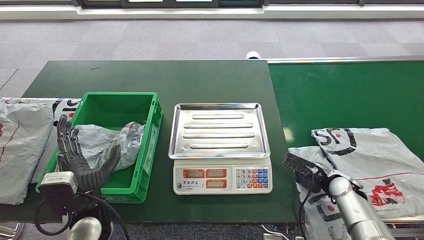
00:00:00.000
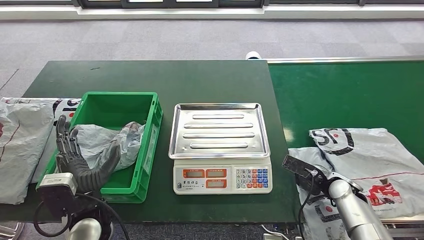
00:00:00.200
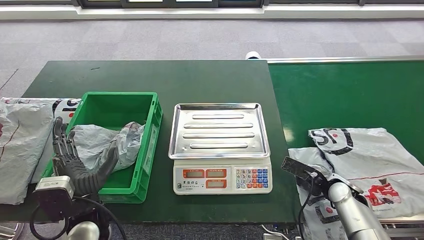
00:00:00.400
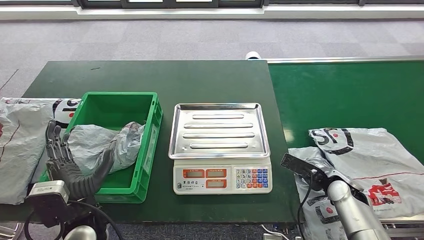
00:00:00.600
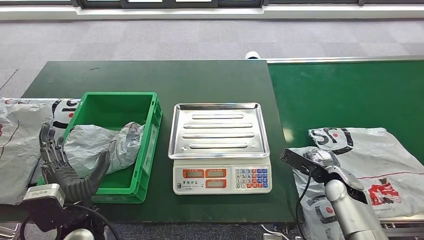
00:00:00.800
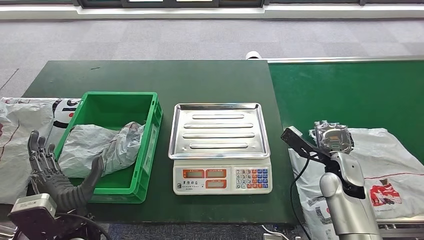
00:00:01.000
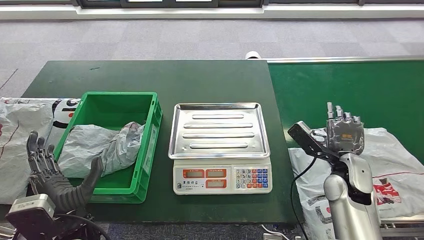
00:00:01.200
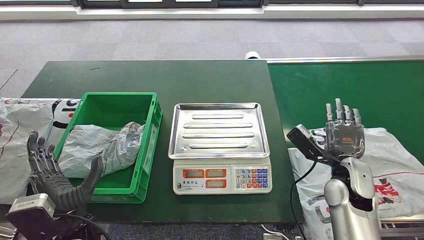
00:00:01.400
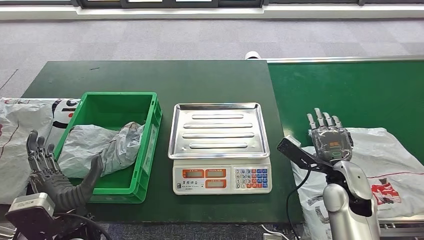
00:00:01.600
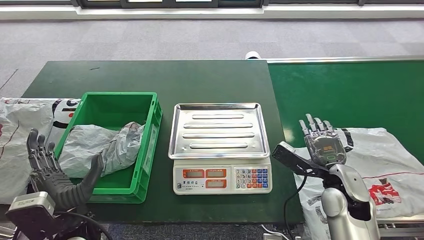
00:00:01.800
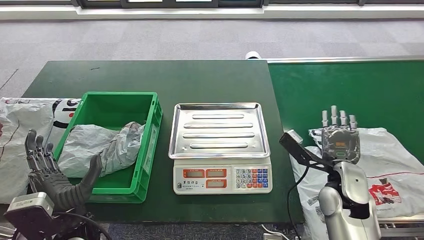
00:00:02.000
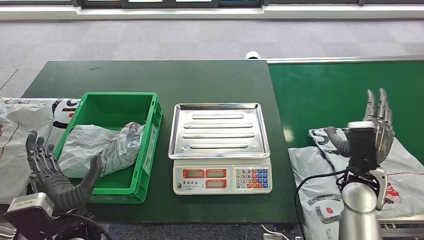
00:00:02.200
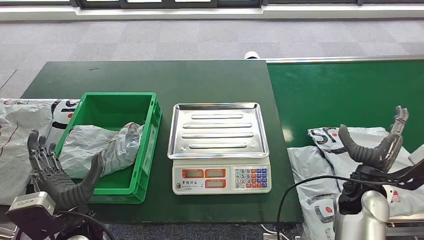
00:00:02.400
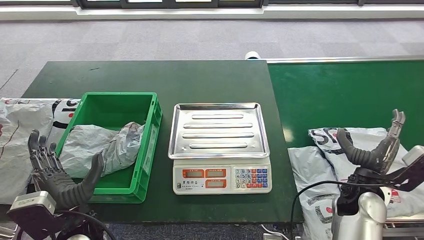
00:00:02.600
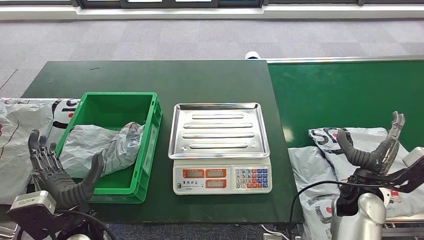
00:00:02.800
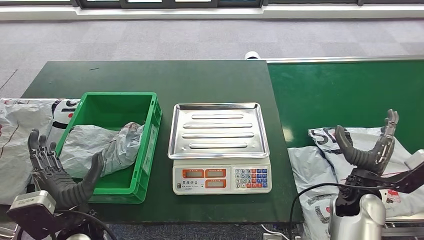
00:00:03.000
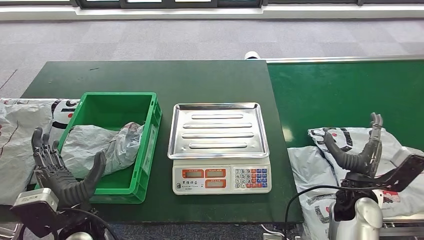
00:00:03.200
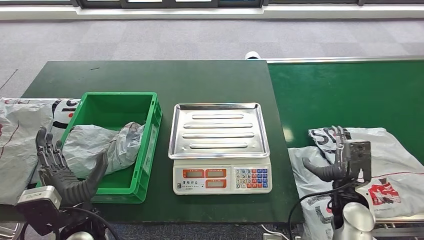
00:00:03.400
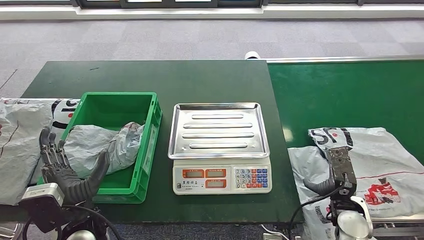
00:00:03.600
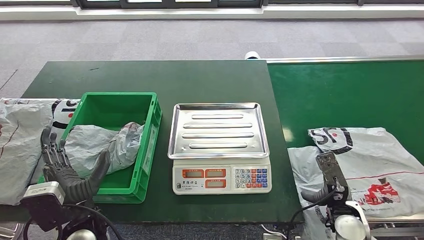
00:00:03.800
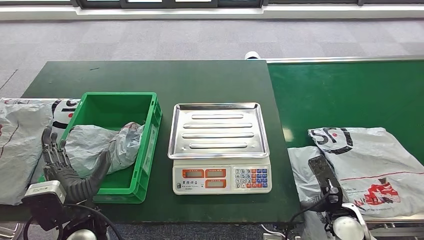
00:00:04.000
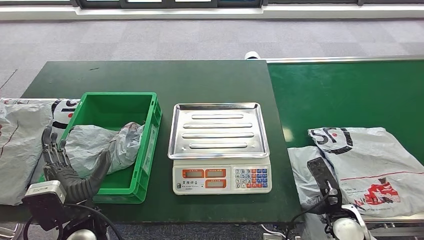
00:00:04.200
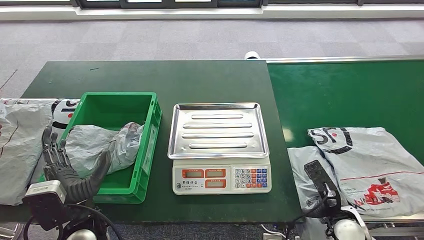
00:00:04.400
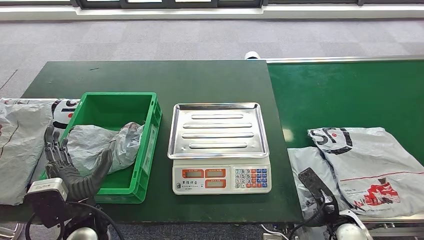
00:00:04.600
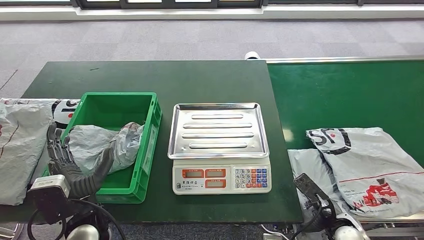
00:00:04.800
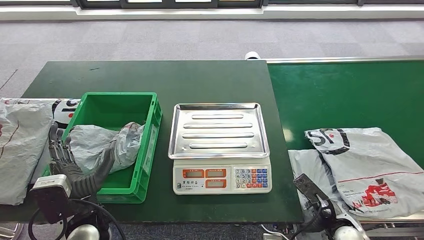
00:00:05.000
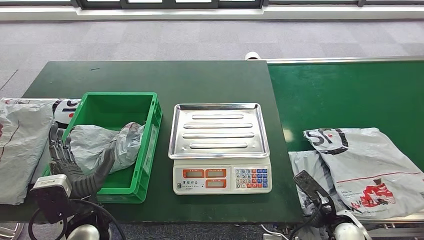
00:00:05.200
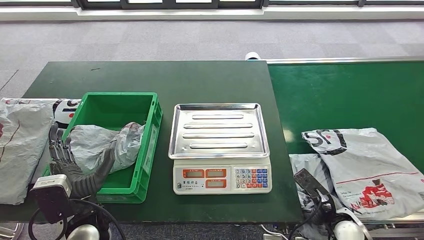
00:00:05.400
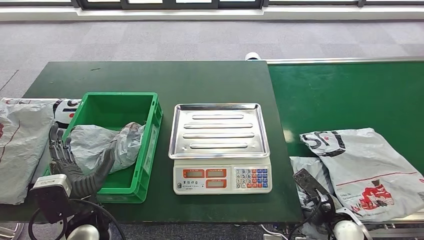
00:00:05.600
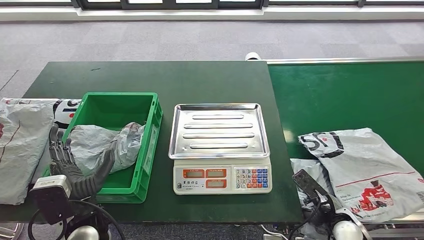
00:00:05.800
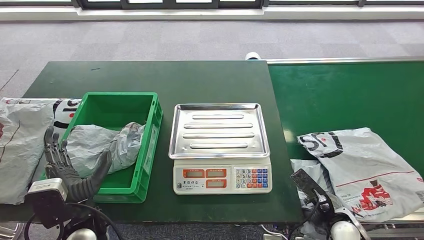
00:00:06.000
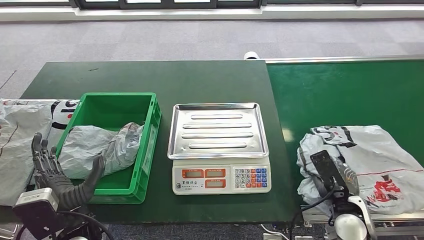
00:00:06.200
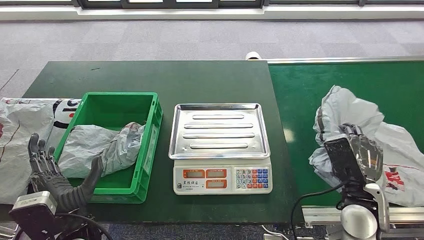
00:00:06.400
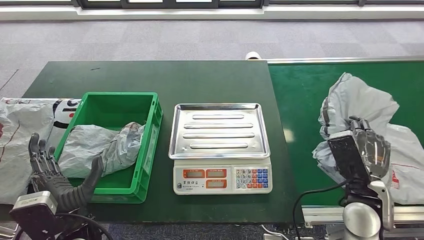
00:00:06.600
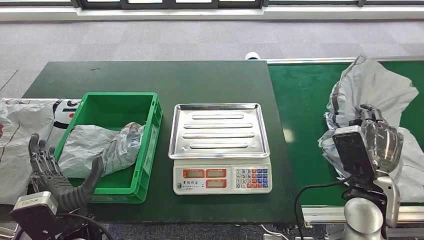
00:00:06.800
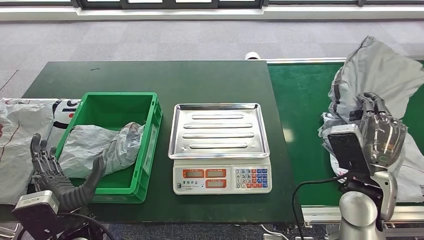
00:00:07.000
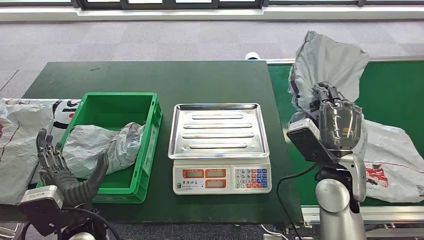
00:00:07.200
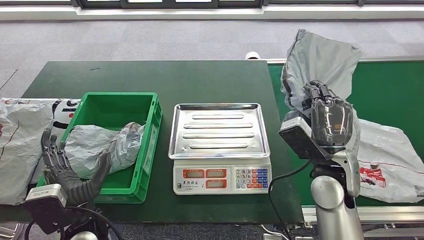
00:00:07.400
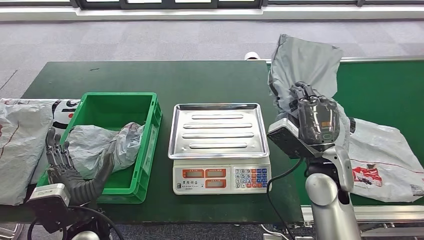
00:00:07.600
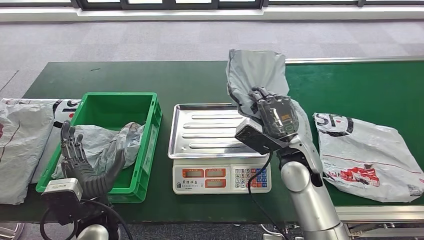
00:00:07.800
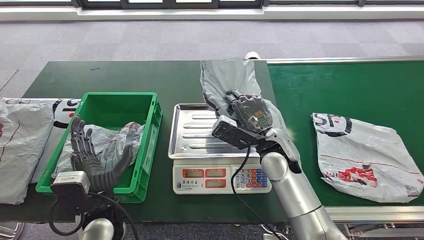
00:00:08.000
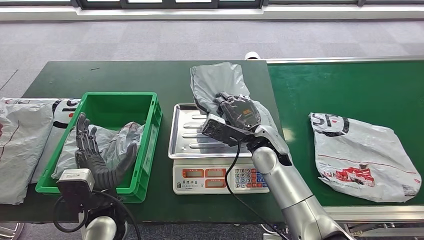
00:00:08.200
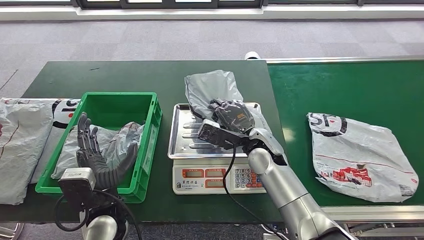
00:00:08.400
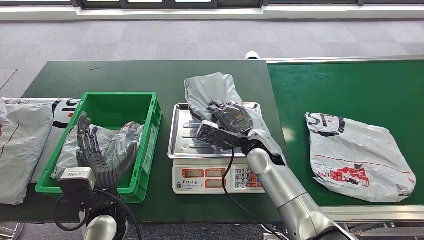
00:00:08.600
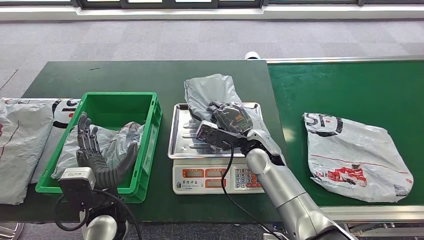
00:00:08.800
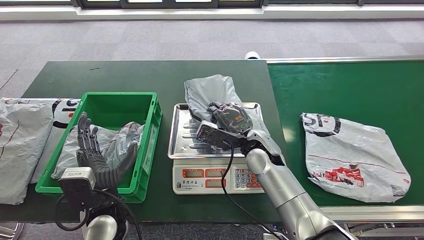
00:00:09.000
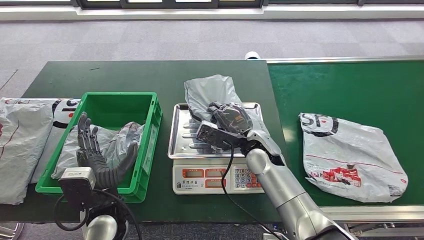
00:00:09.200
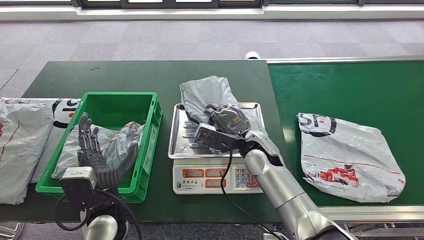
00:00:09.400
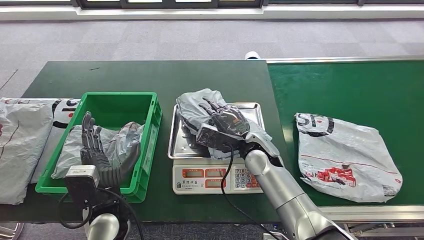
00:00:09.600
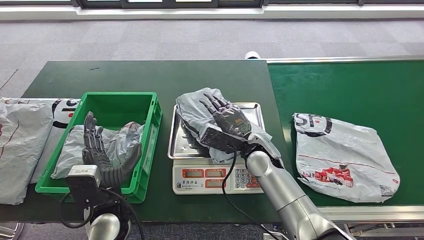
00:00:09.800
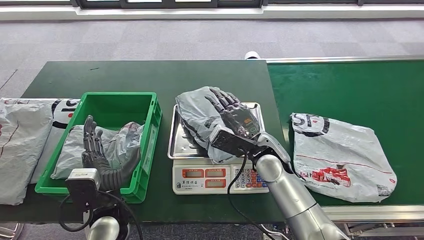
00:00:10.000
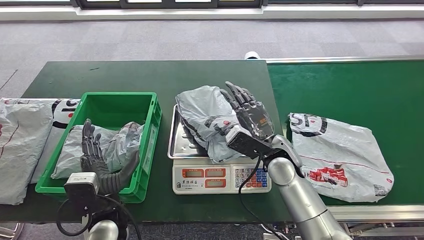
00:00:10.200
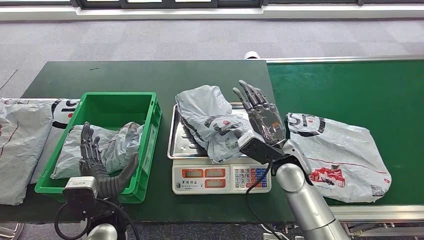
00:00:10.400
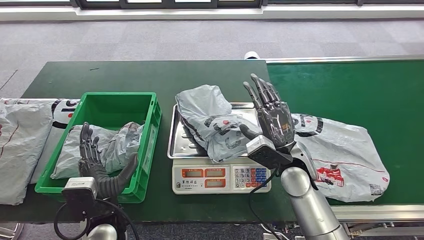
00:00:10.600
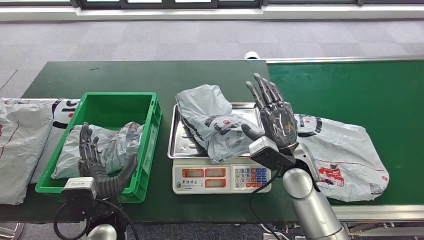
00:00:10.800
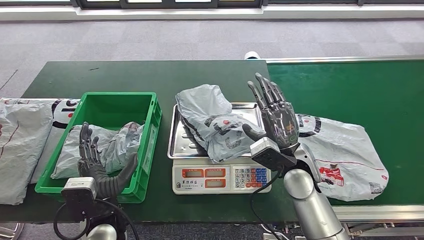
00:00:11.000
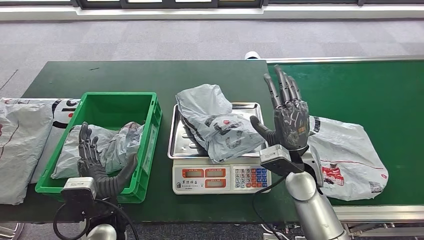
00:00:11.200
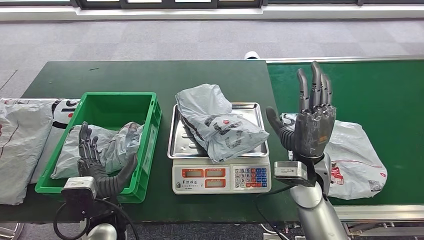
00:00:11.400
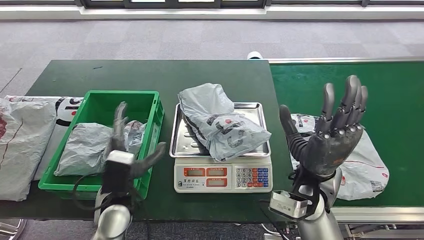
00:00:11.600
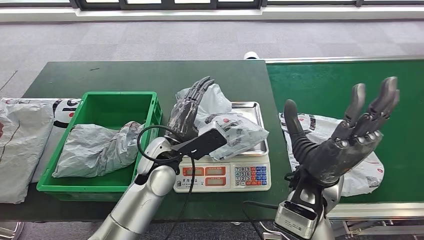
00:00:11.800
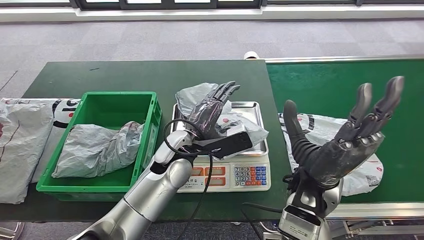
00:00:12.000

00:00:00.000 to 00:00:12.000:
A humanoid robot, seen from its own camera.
Step, 00:00:00.000 to 00:00:07.200: Pick up the parcel from the conveyor belt.
Step, 00:00:07.400 to 00:00:11.200: Place the parcel onto the inbound machine.
00:00:00.000 to 00:00:01.600: The right hand shifts some 15 cm upward and to the left.
00:00:03.000 to 00:00:04.400: The right hand moves downward and backward, about 10 cm.
00:00:04.400 to 00:00:06.000: The hands make only small movements.
00:00:06.000 to 00:00:07.600: The right hand moves upward, forward and to the left, roughly 20 cm.
00:00:09.000 to 00:00:10.400: The right hand shifts approximately 5 cm to the right.

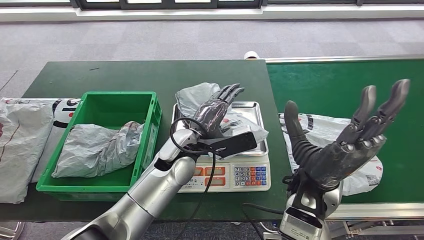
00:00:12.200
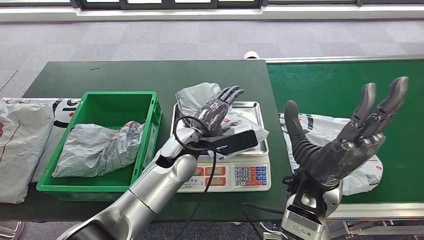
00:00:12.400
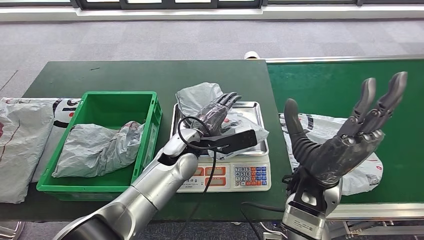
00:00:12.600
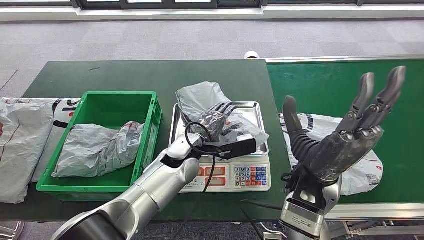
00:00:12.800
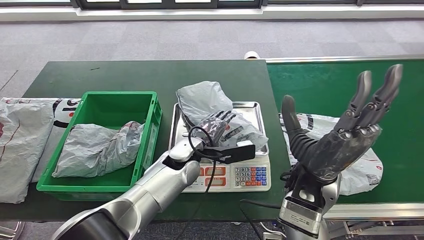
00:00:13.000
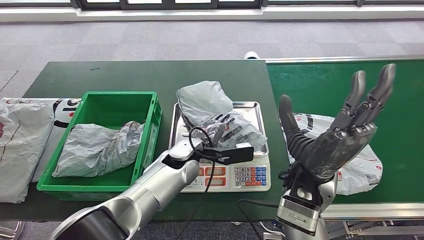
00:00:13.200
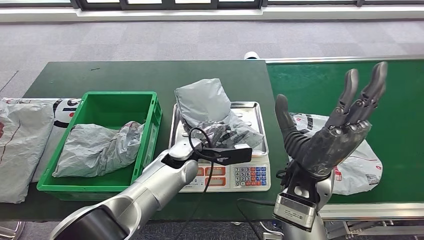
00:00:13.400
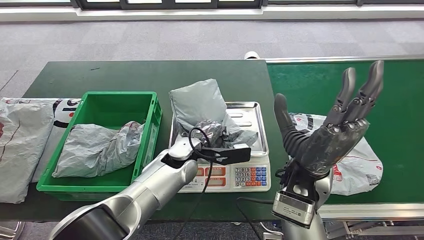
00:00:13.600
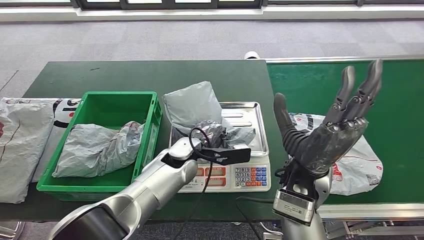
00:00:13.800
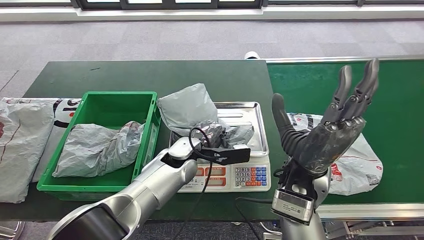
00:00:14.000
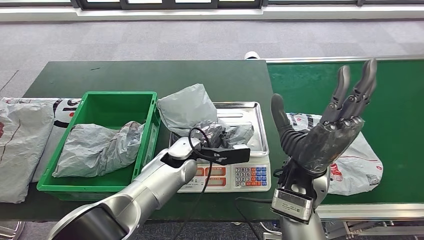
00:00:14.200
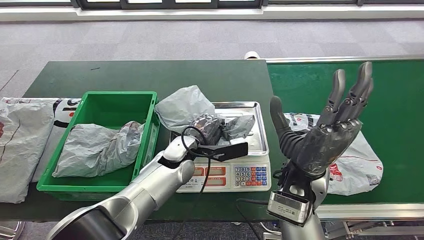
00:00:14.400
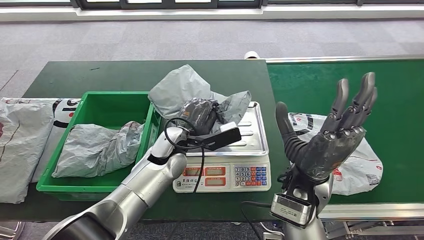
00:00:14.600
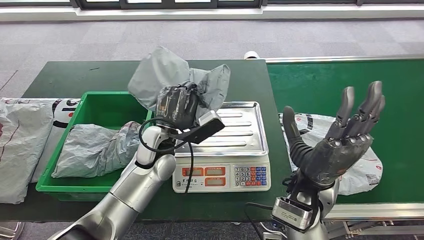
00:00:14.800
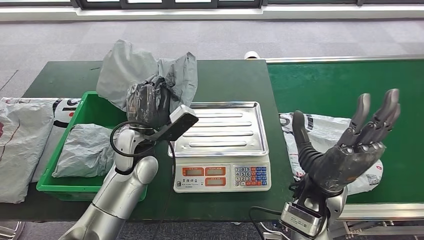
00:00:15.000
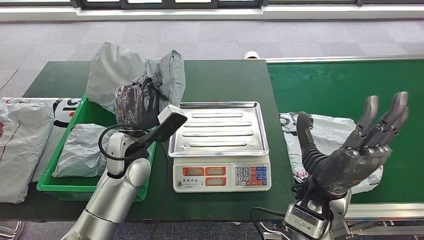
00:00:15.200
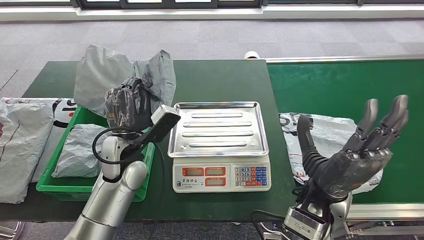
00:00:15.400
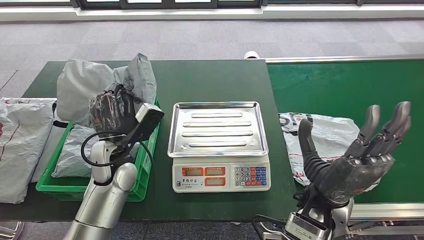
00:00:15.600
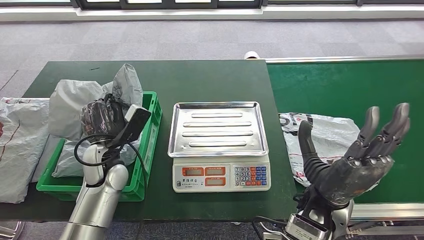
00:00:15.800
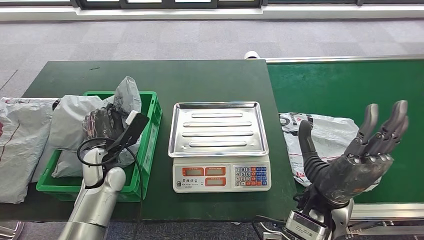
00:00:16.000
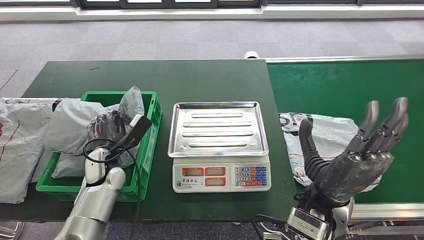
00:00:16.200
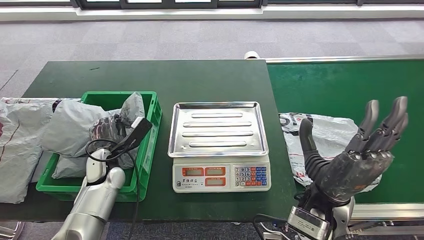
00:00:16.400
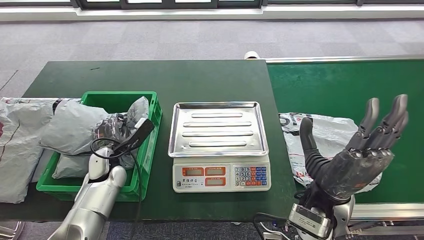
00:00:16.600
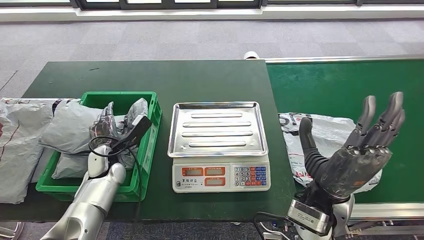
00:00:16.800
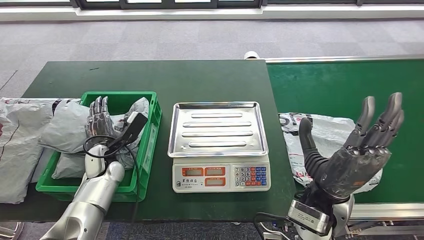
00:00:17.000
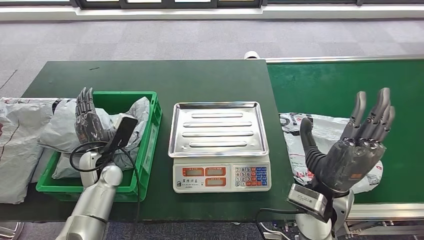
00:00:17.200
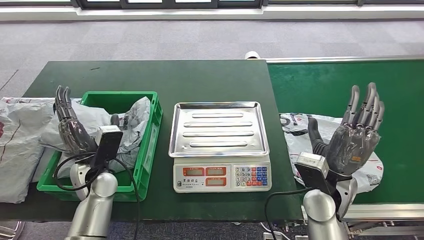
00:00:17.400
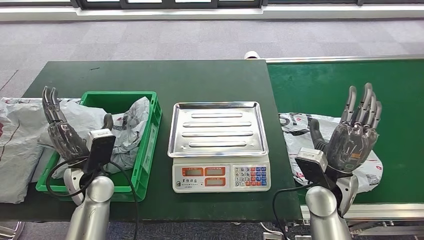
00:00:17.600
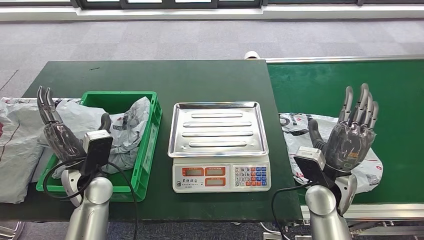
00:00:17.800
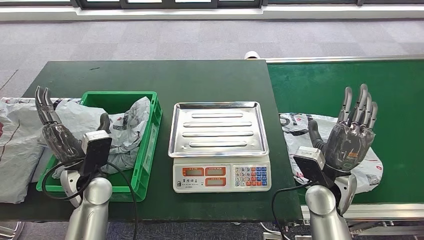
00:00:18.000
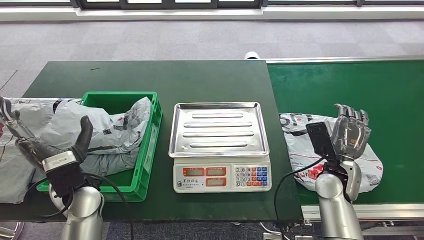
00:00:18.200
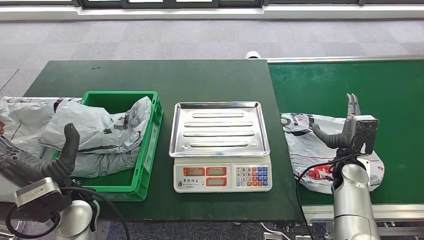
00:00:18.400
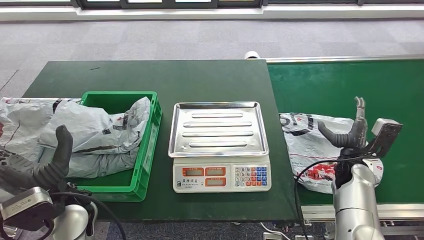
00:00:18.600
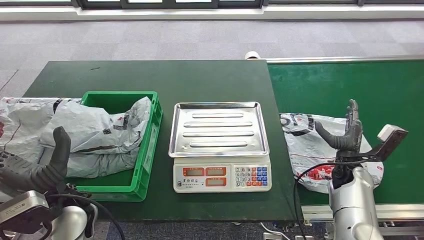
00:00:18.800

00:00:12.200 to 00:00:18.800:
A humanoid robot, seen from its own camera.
Step, 00:00:12.200 to 00:00:16.800: Pick up the parcel from the inbound machine.
Step, 00:00:17.000 to 00:00:18.200: Place the parcel into the delivery box.
00:00:12.200 to 00:00:13.800: The left hand goes roughly 5 cm downward.
00:00:15.400 to 00:00:17.200: The left hand moves to the left and downward, some 15 cm.
